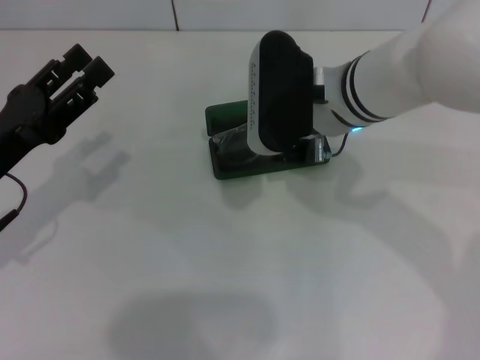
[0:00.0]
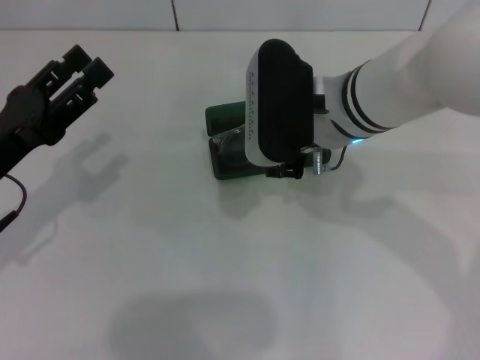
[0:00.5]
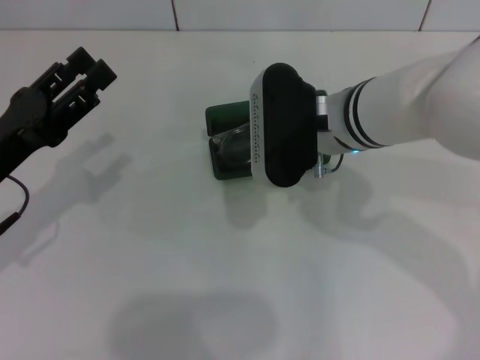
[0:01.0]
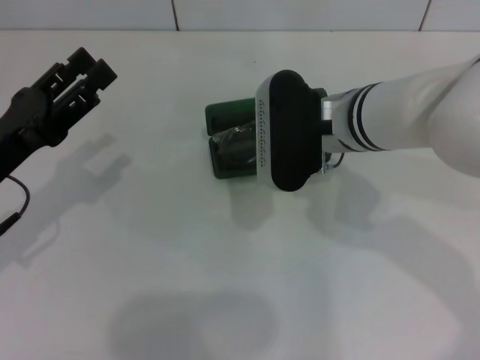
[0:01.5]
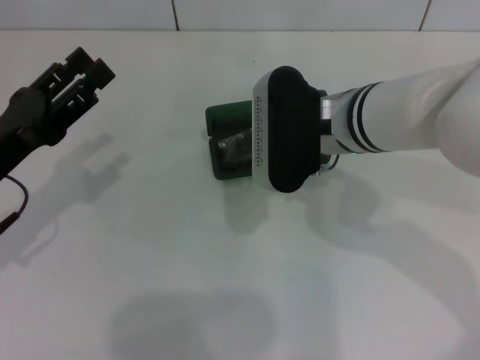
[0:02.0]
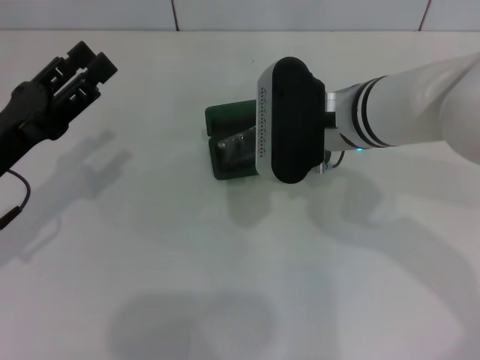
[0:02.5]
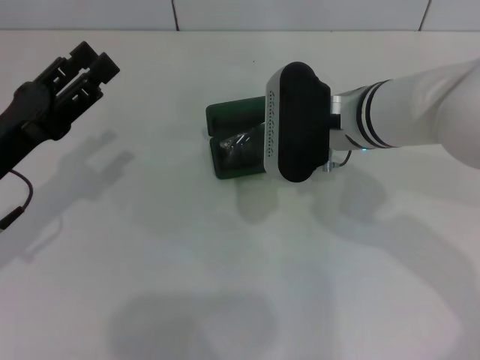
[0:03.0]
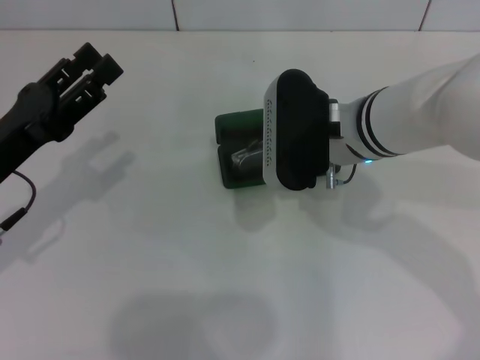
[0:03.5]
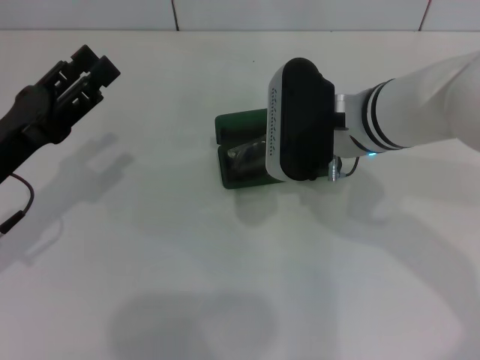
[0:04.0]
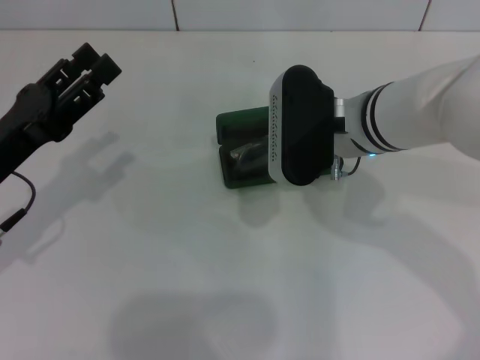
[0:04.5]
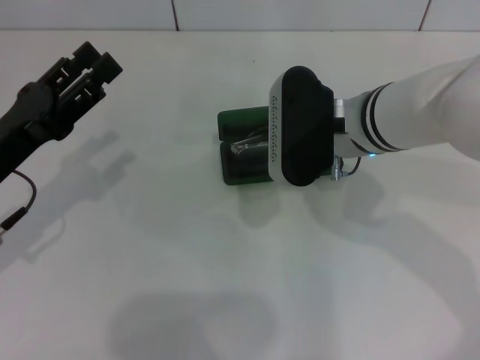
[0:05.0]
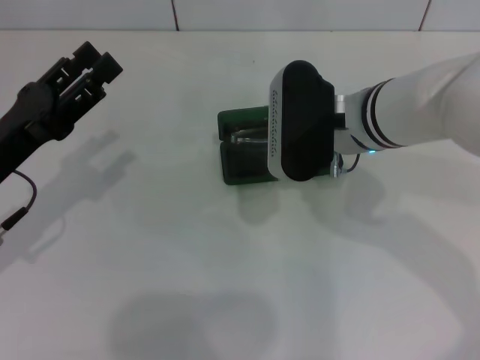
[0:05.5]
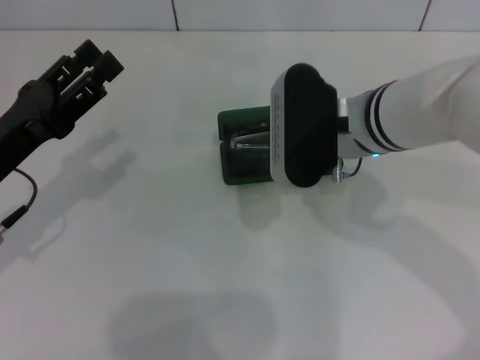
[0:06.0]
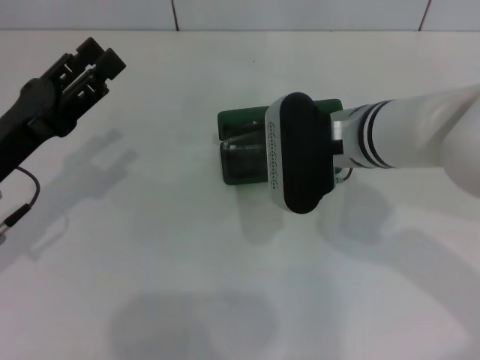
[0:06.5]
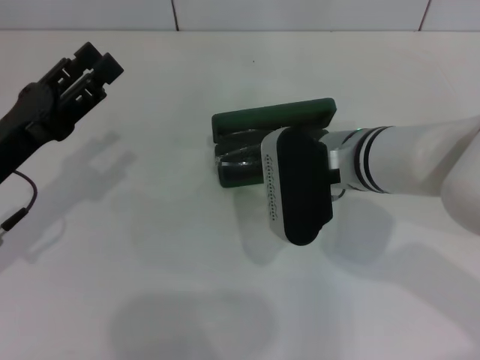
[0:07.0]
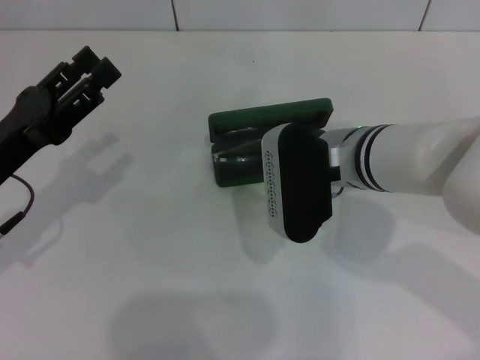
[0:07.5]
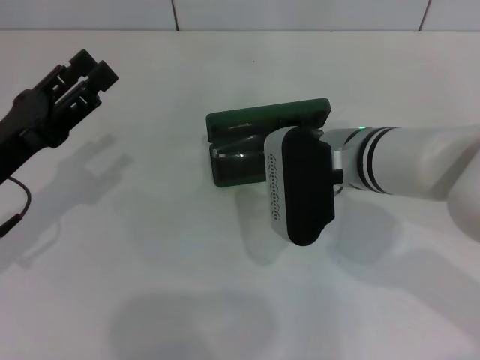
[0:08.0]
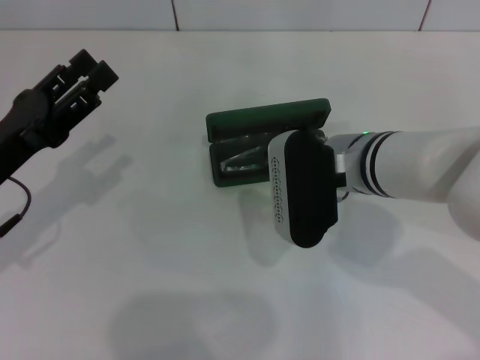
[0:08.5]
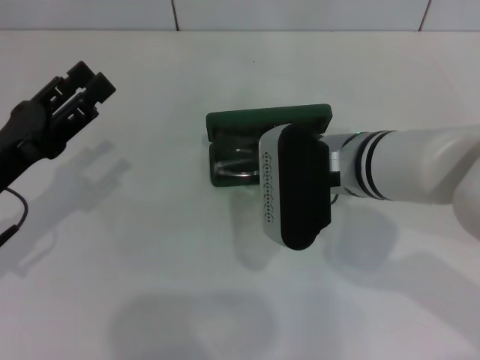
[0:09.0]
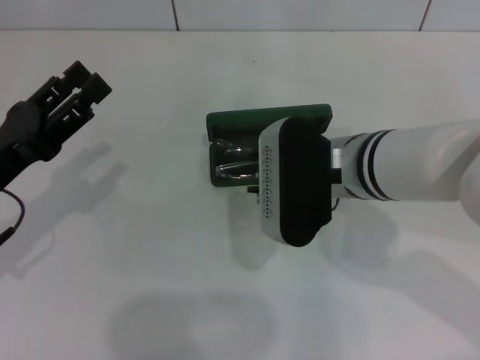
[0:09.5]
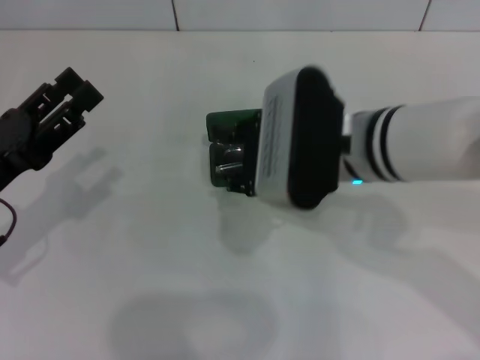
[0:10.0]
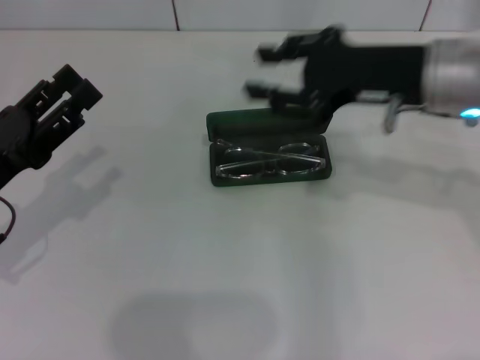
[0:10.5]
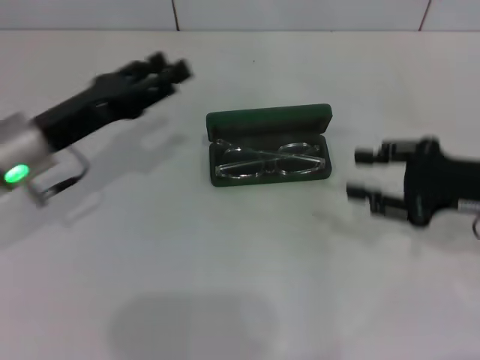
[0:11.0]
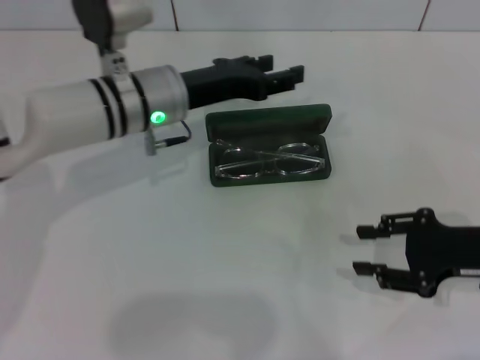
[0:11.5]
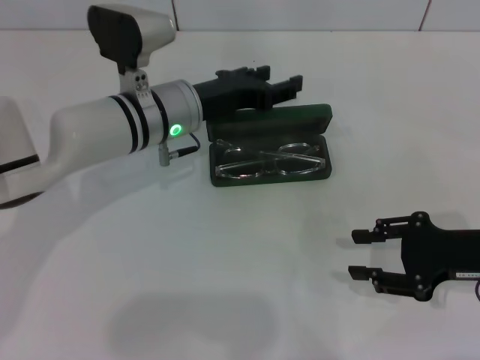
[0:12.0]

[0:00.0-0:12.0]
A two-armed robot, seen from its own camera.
Step, 0:00.0 to 0:09.5: Put the glasses into the case with your right hand.
0:00.0 to 0:04.0: The grippers make only small movements.
0:04.0 to 0:06.0: The right gripper closes its fingers.
0:06.0 to 0:08.0: There are only small adjustments of the grippers.
0:08.0 to 0:10.0: The right gripper changes place by approximately 5 cm, and opens its fingers.
0:10.0 to 0:12.0: The left gripper is displaced to the right and forward by roughly 25 cm. Meanwhile the right gripper shifts approximately 20 cm to the right and downward.

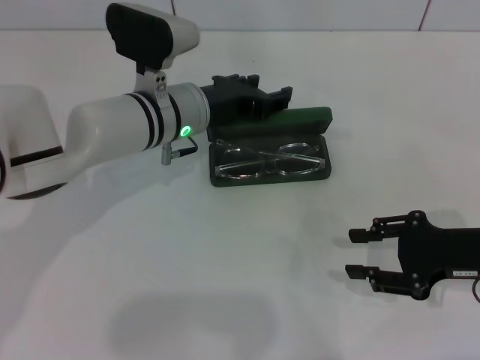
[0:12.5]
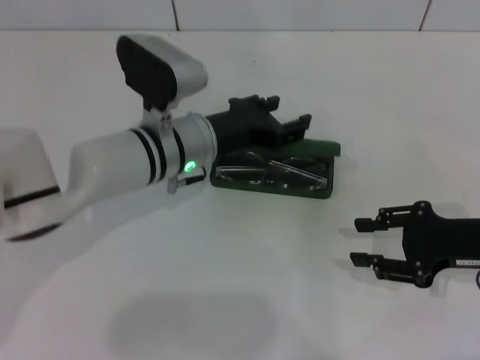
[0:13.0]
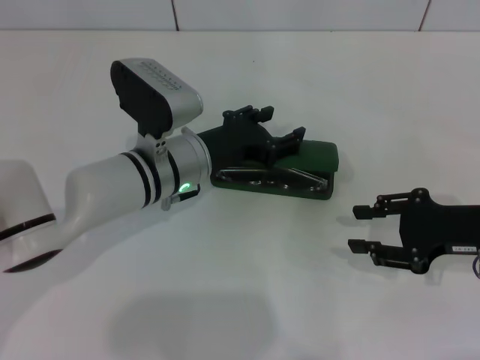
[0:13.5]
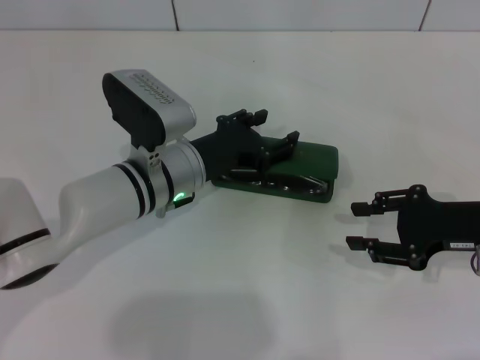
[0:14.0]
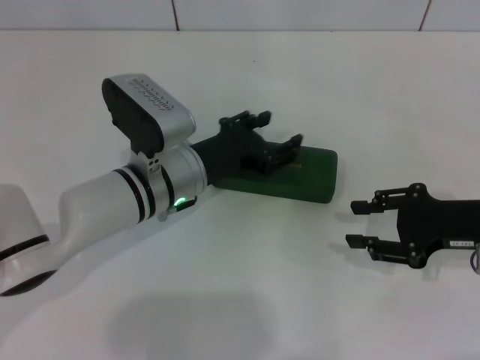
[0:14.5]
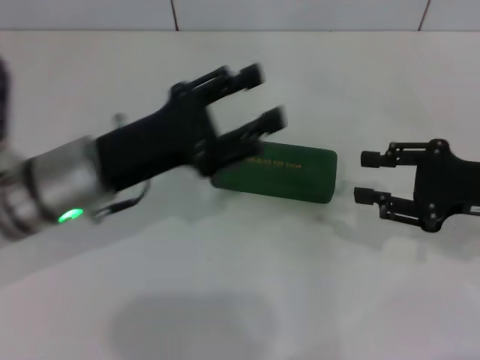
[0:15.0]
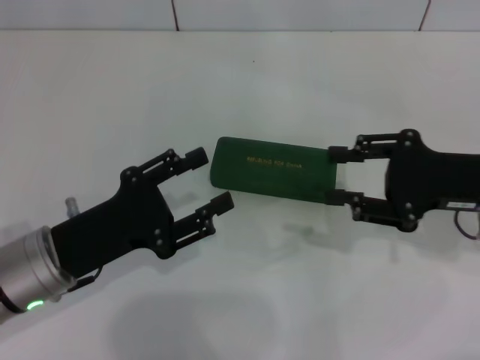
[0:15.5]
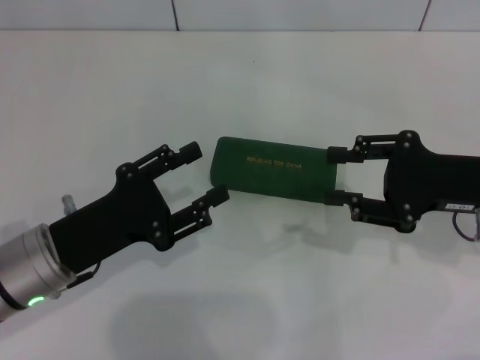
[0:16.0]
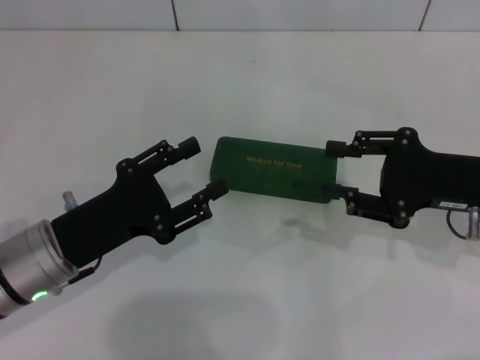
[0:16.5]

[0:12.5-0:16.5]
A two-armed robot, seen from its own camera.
Step, 0:12.5 to 0:14.5: Close the glasses case with your left hand.
0:12.5 to 0:14.5: The left gripper shifts approximately 5 cm backward.
0:14.5 to 0:16.5: The left gripper moves to the left and backward, some 15 cm.

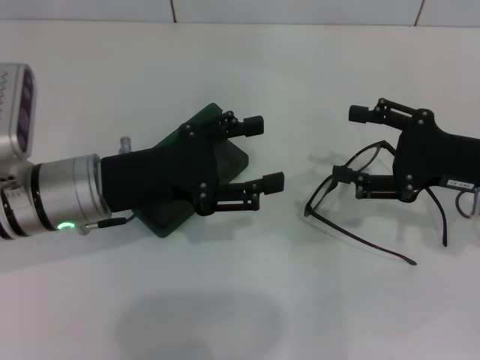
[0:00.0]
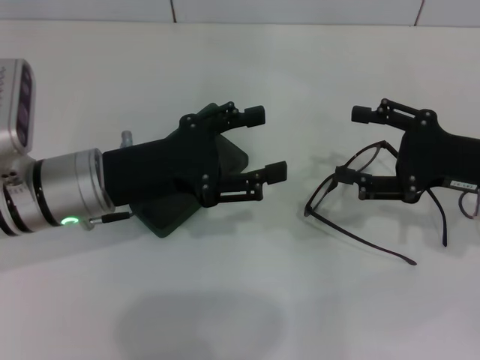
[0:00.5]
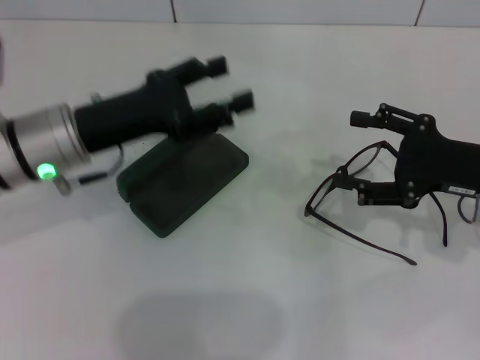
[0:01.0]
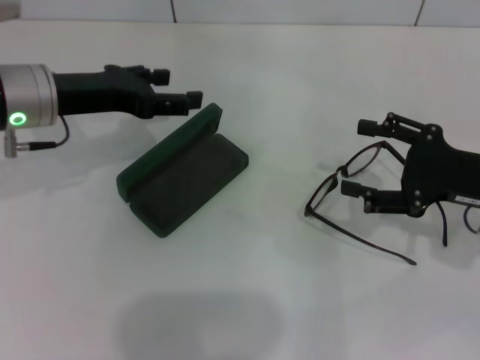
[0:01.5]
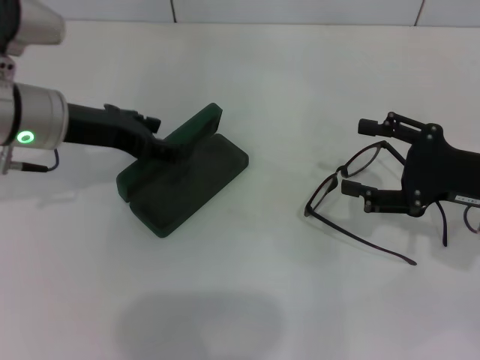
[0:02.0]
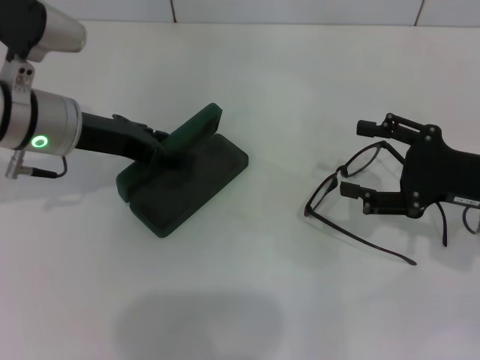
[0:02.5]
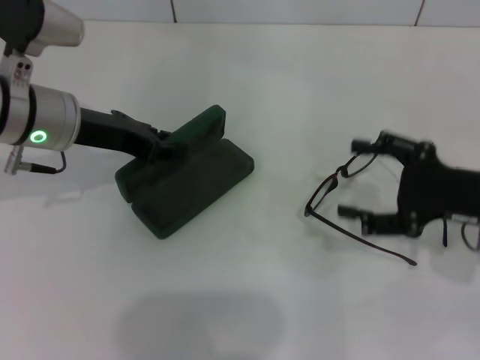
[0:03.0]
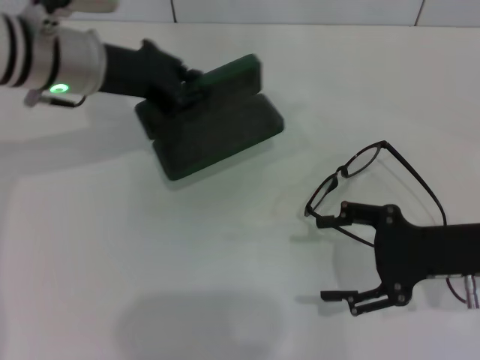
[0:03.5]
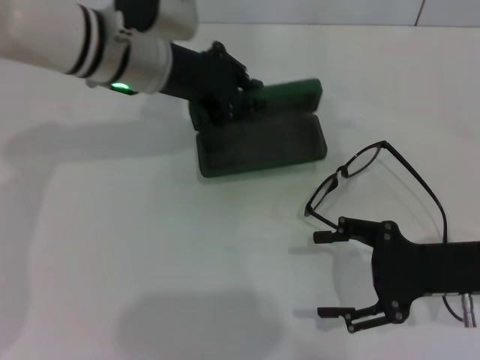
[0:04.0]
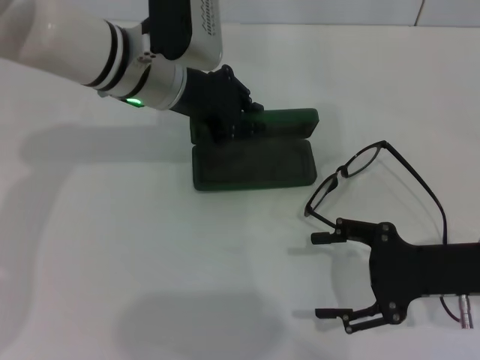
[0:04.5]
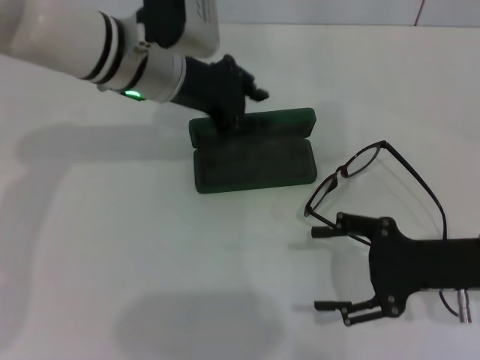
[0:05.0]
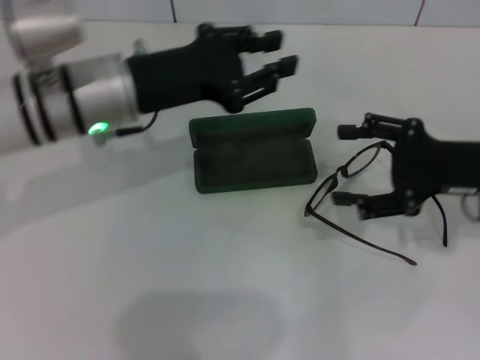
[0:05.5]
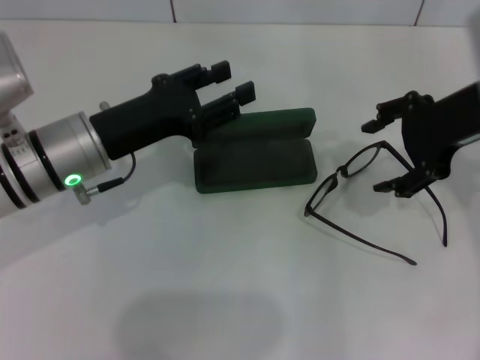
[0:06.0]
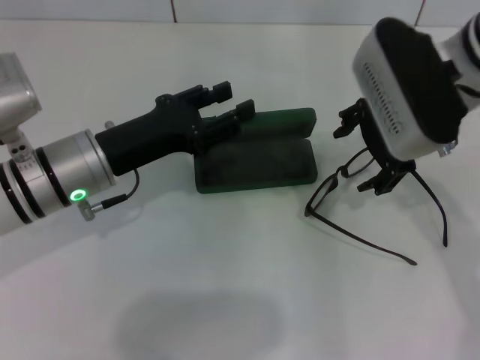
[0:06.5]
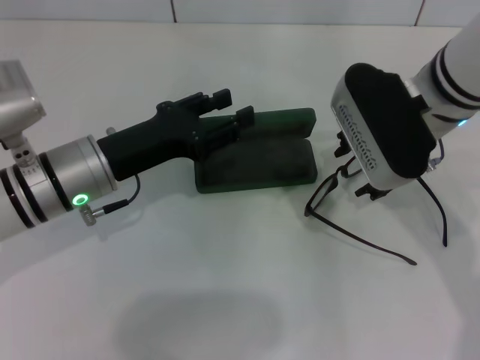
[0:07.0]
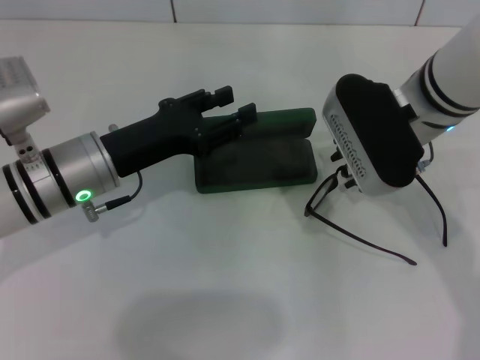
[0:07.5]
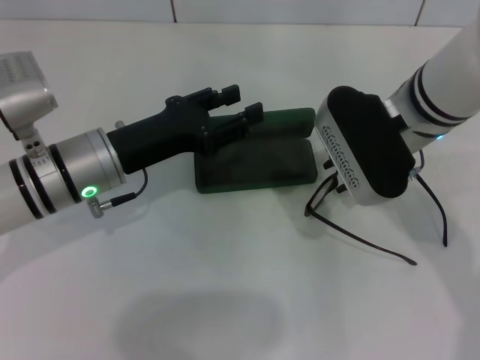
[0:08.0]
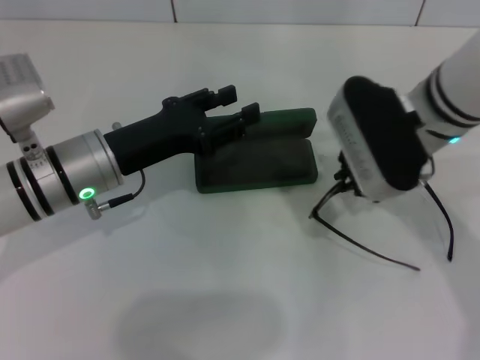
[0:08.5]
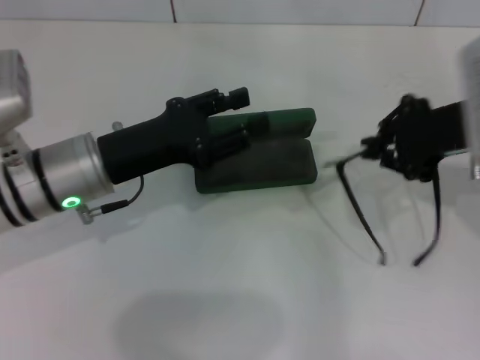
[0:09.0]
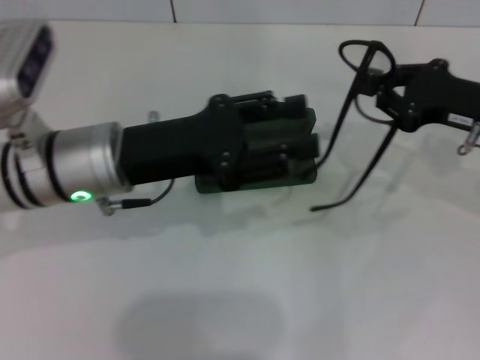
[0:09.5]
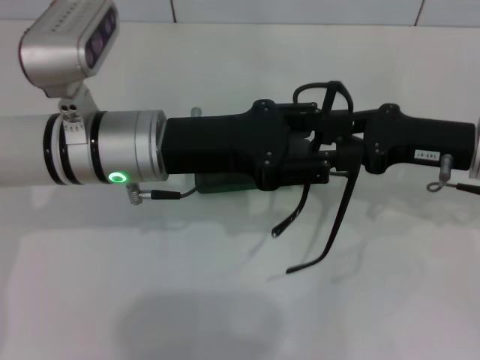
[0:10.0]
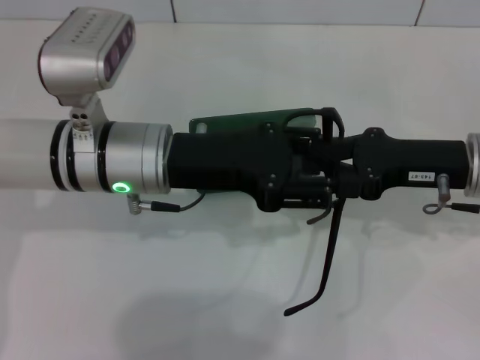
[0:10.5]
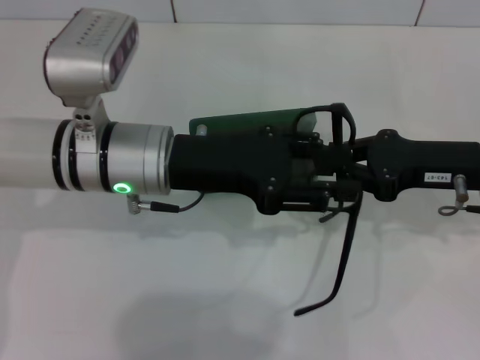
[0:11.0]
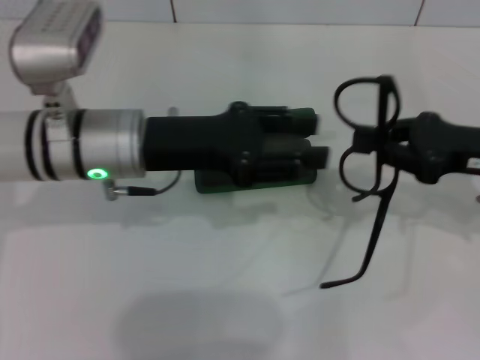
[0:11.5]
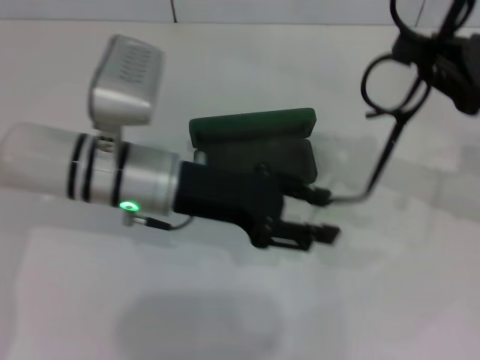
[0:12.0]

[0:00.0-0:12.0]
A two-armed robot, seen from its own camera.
Step, 0:00.0 to 0:02.5: Grab the glasses case with your left hand.
Step, 0:03.0 to 0:04.5: Place the glasses case in the center of the table with your left hand.
Step, 0:05.0 to 0:08.0: Grab the eyeglass frame with your right hand.
0:00.0 to 0:02.0: The left gripper moves forward, roughly 5 cm.
0:02.0 to 0:04.0: The right gripper ends up about 5 cm from where it was; the left gripper is displaced to the right by approximately 10 cm, and closes its fingers.
0:04.0 to 0:06.0: The left gripper travels backward, downward and to the left by some 10 cm, and opens; the right gripper travels upward and forward by roughly 15 cm.
0:06.0 to 0:08.0: The right gripper shifts roughly 10 cm to the left and downward, and closes up.
0:08.0 to 0:10.0: The left gripper goes about 5 cm upward and to the right; the right gripper goes some 10 cm to the right.
0:10.0 to 0:12.0: The right gripper shifts by roughly 5 cm.
